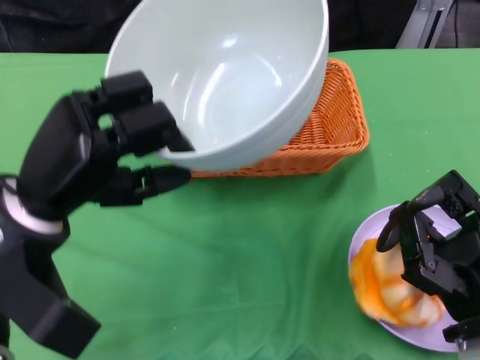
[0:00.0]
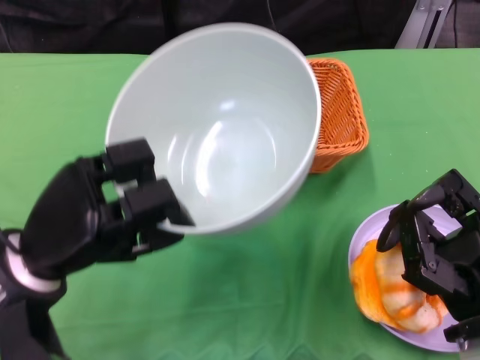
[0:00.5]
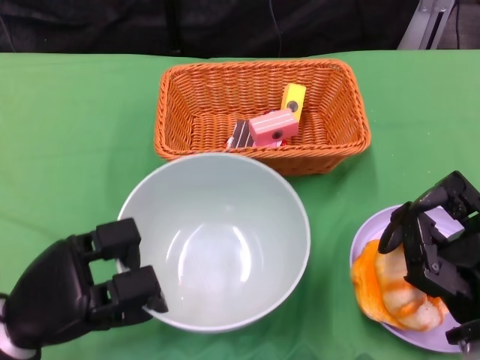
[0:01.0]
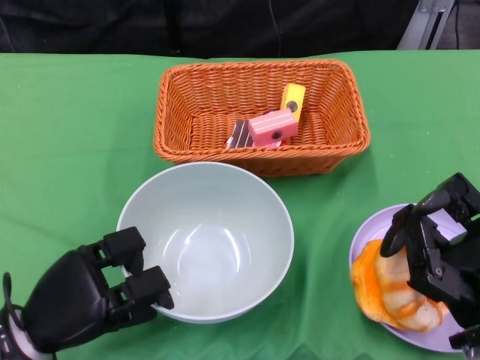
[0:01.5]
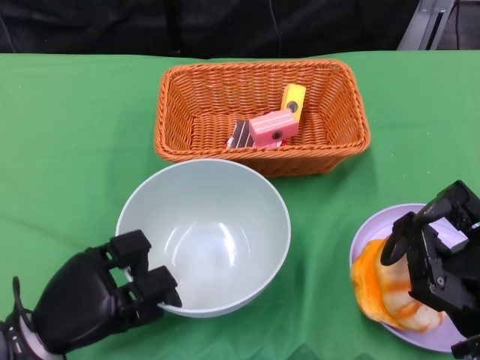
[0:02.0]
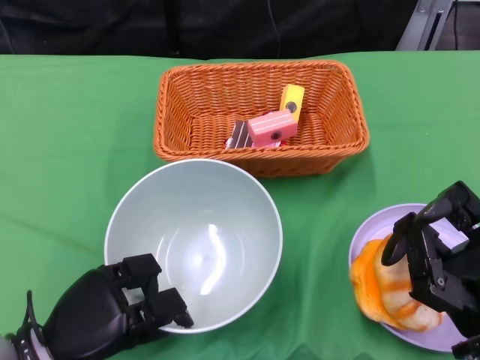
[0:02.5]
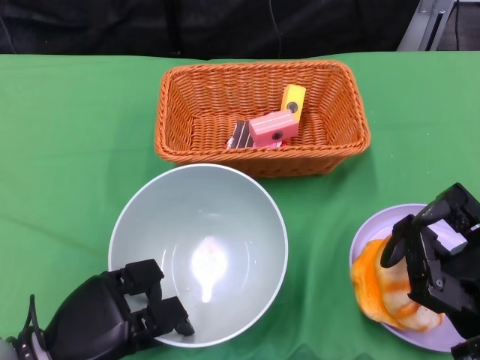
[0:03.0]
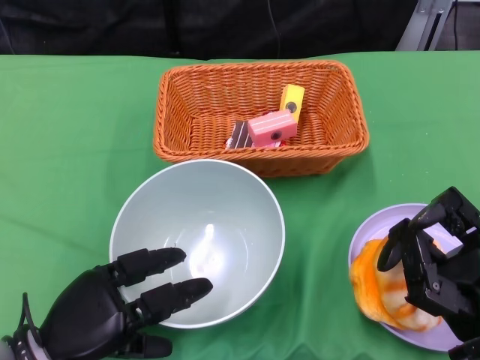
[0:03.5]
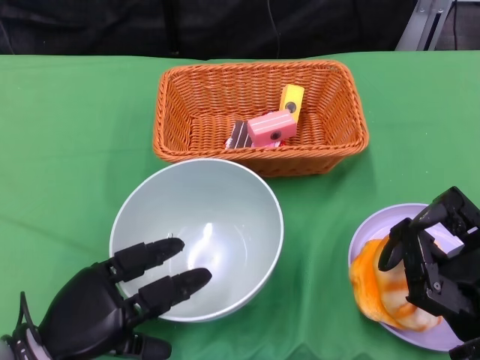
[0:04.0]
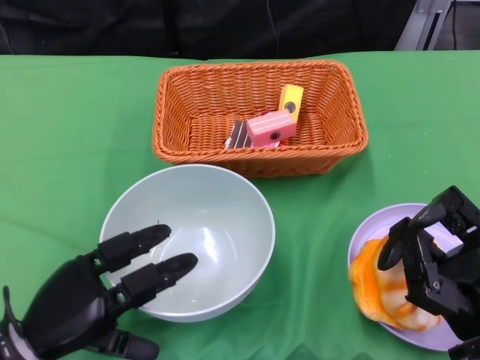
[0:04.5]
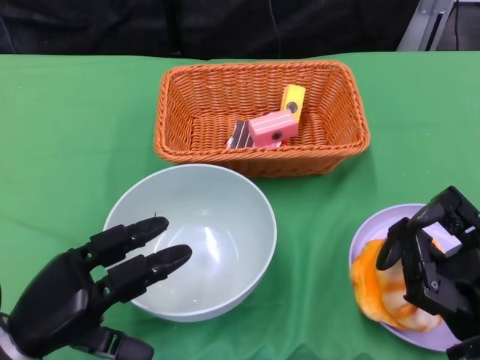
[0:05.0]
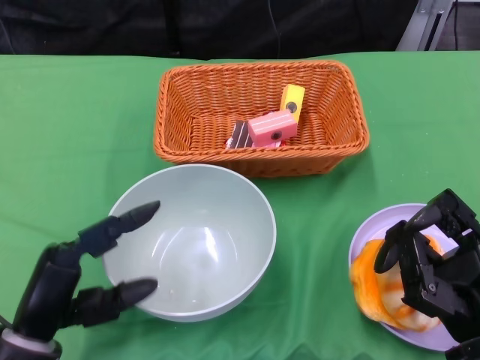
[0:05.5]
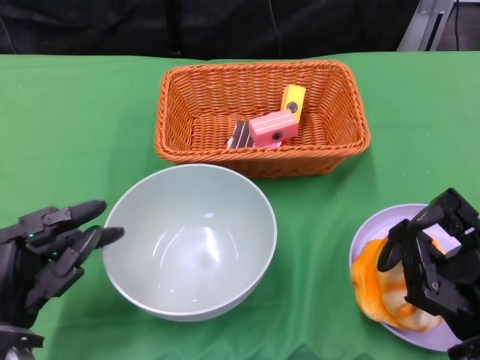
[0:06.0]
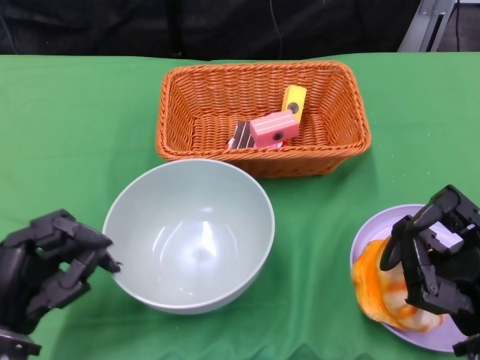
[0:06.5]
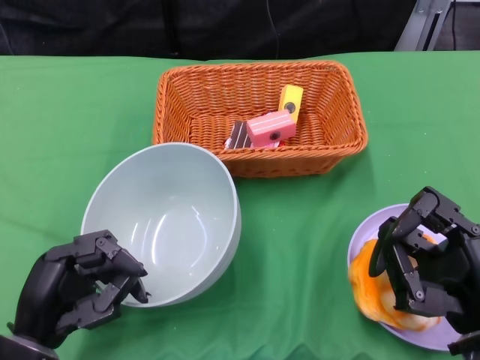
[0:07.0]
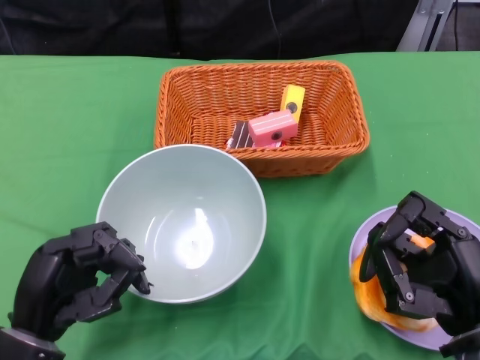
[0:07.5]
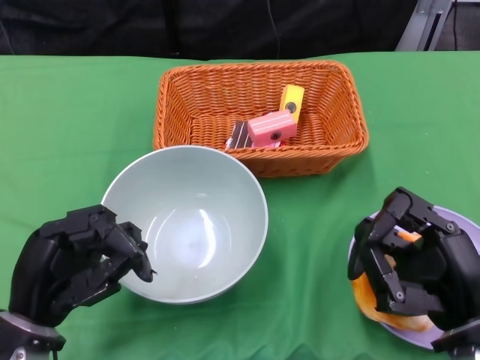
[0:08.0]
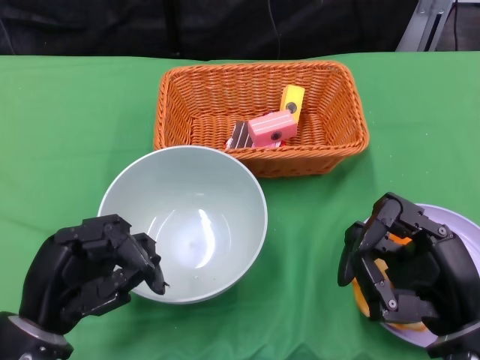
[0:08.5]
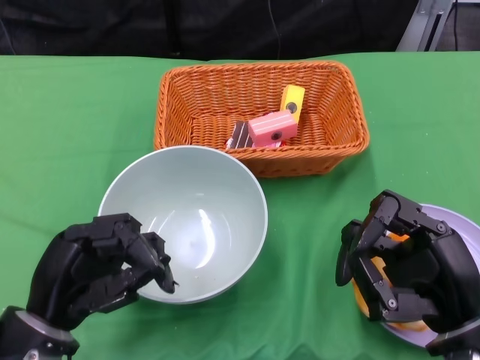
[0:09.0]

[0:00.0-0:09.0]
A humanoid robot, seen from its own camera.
Step, 0:00.0 to 0:05.0: Place the bowl on the table with the left gripper.
0:00.0 to 0:02.0: The left hand moves downward, roughly 15 cm.
0:02.0 to 0:04.5: The hands make only small movements.

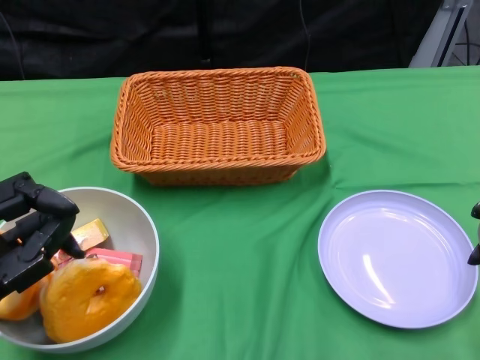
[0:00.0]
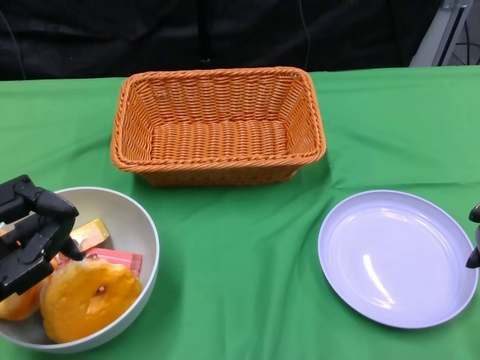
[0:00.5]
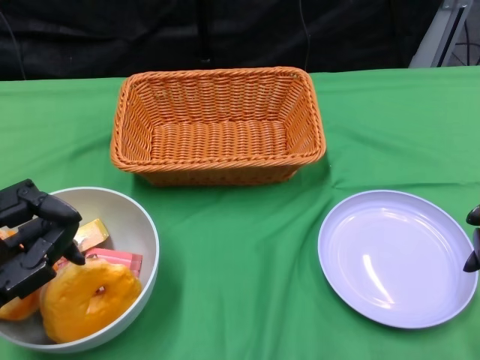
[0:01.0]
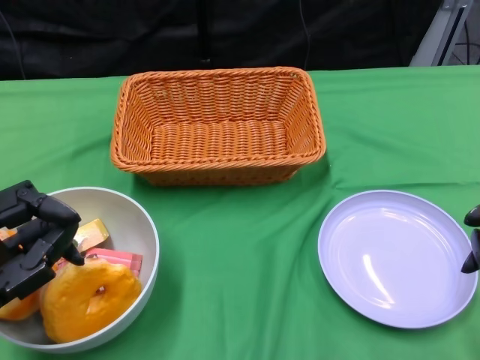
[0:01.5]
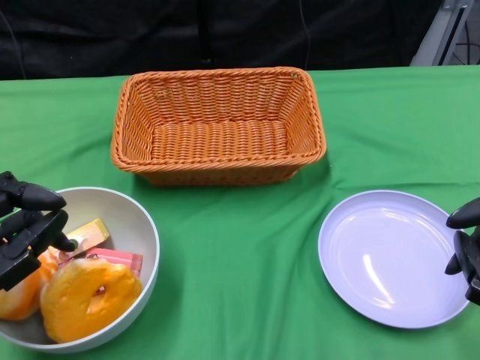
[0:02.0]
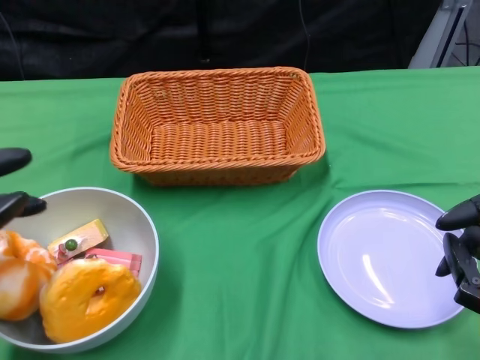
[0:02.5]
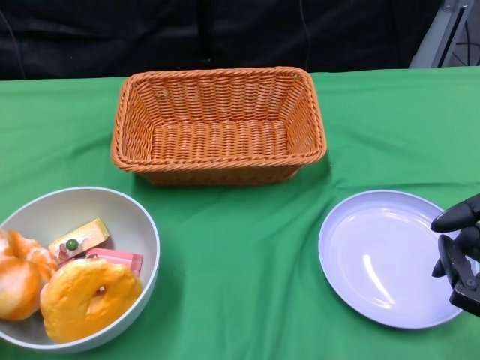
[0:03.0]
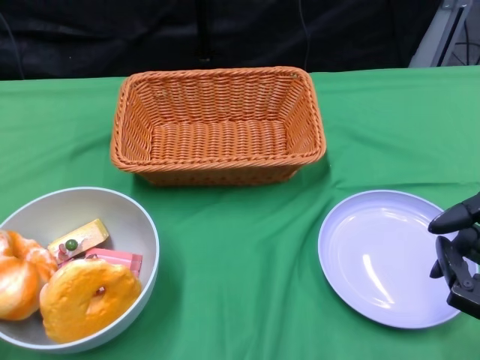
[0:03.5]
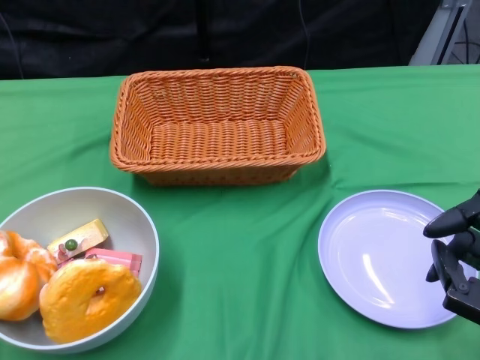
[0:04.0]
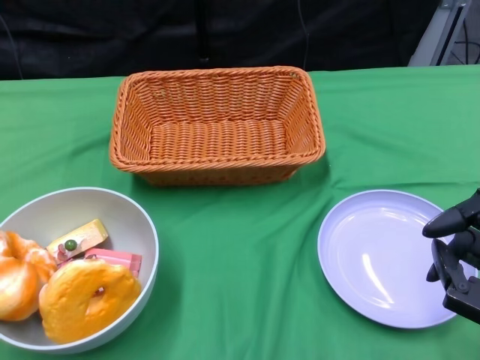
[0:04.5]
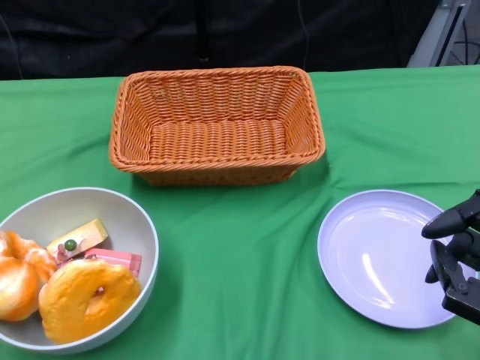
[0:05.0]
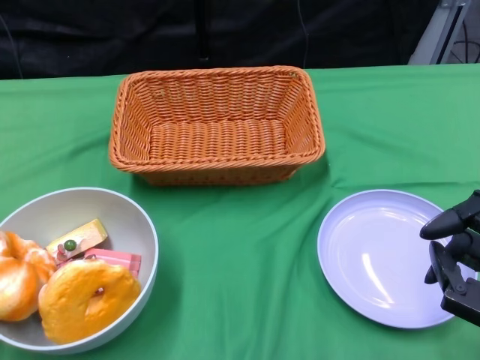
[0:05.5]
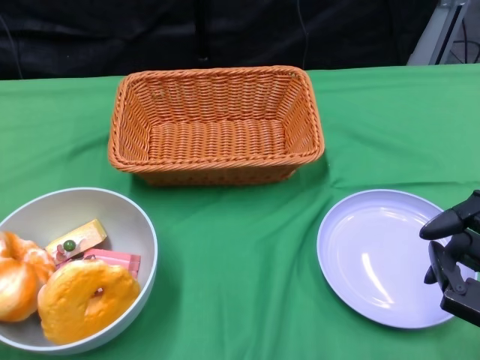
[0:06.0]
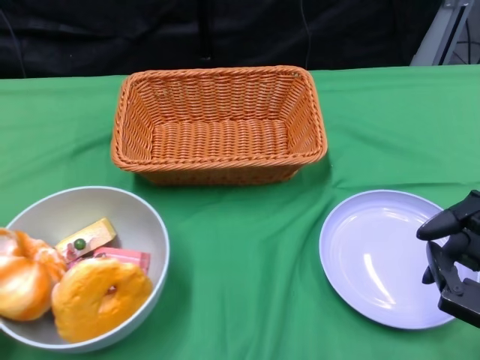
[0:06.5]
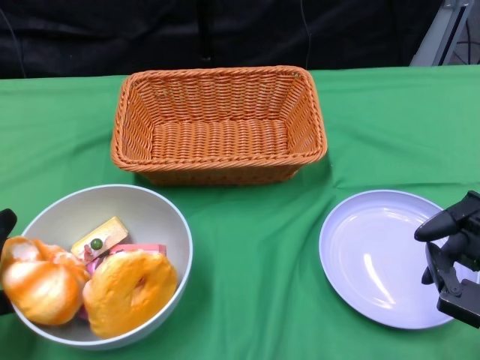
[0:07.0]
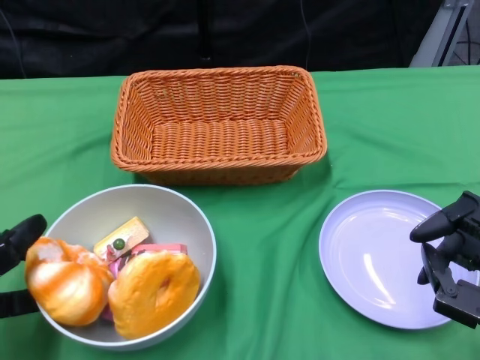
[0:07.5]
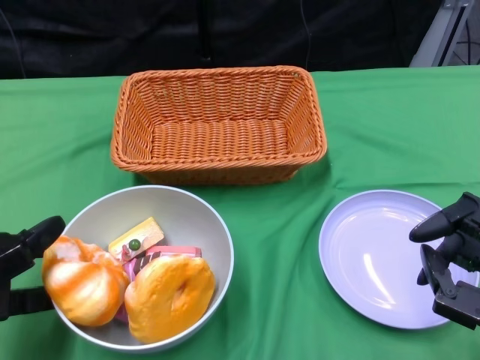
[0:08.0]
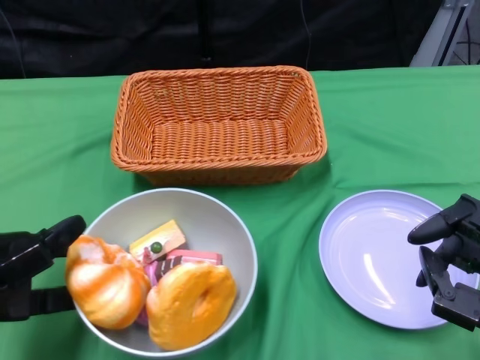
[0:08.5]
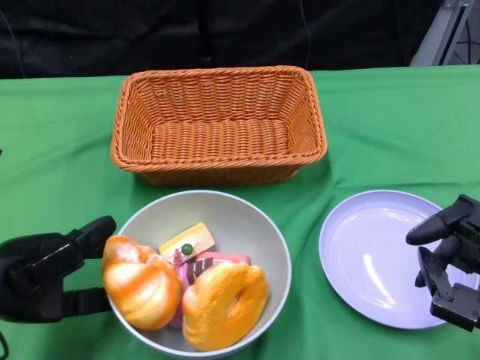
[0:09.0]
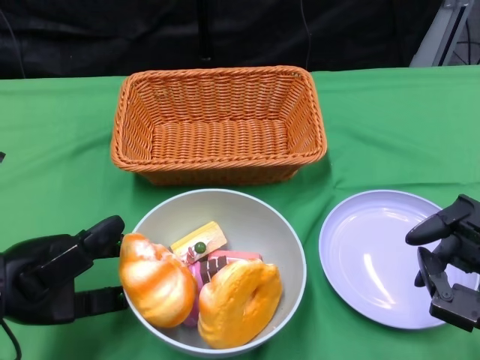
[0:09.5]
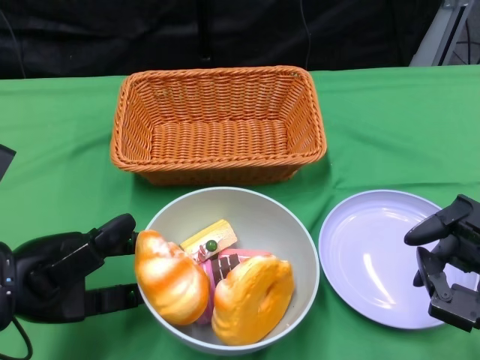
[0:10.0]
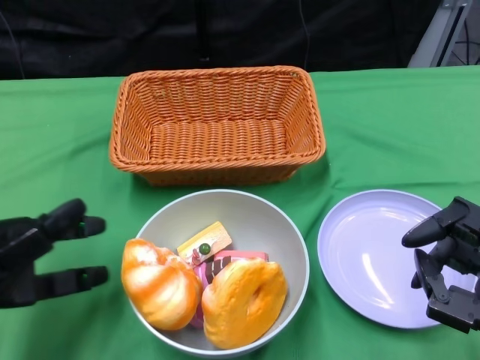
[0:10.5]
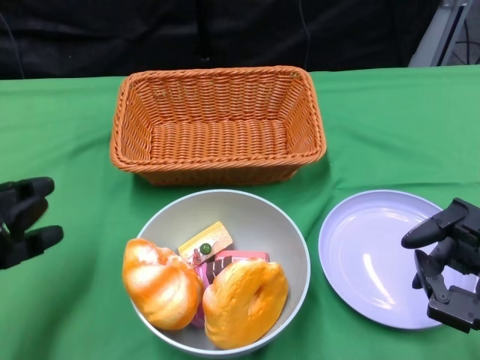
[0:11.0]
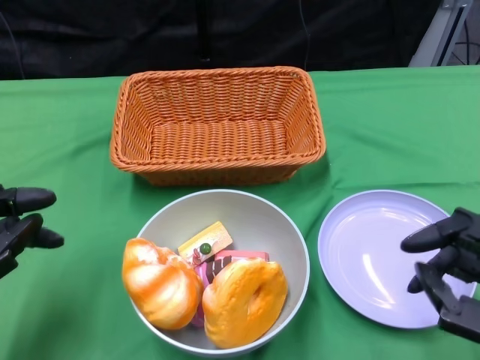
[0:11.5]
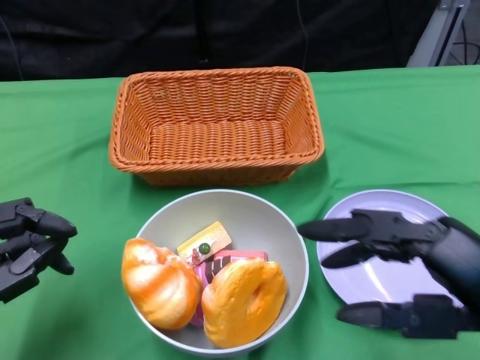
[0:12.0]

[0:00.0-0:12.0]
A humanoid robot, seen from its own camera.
Step, 0:00.0 to 0:10.5: Push the bowl to the center of the table using the left gripper.
0:02.0 to 0:04.0: The left hand moves to the left and forward, about 15 cm.
0:06.0 to 0:08.0: The left hand shifts some 5 cm to the right.
0:08.0 to 0:10.0: The left hand heads to the right, covering some 5 cm.
0:10.0 to 0:12.0: The left hand moves downward, about 5 cm, while the right hand goes approximately 5 cm upward.

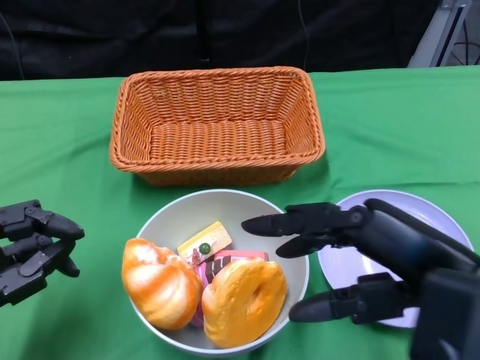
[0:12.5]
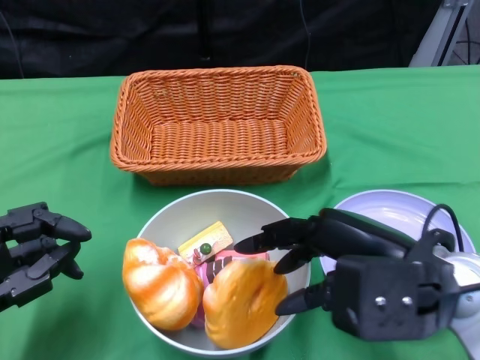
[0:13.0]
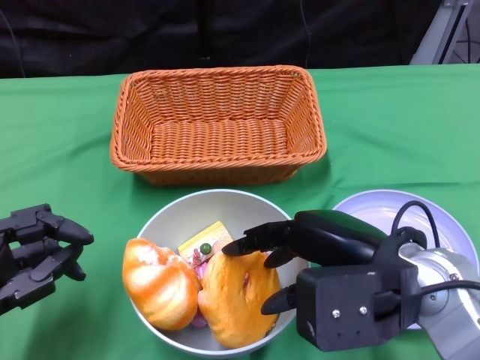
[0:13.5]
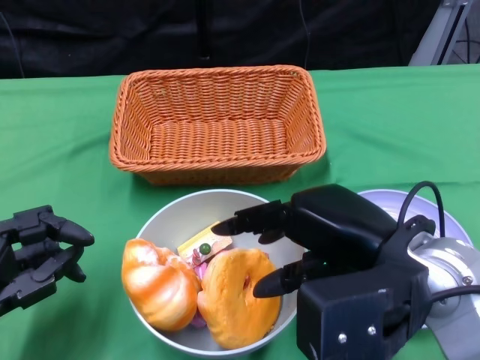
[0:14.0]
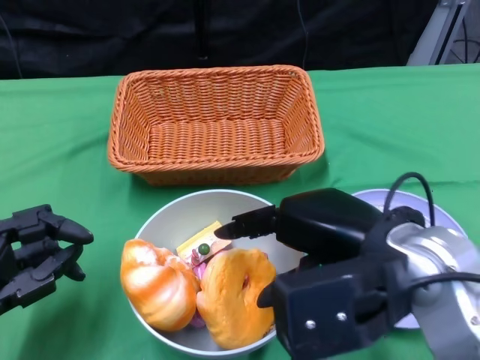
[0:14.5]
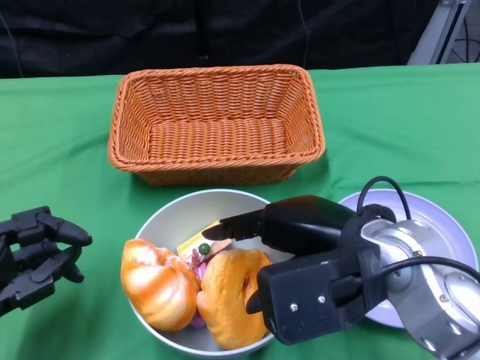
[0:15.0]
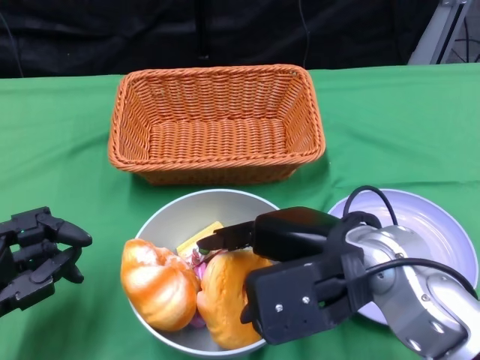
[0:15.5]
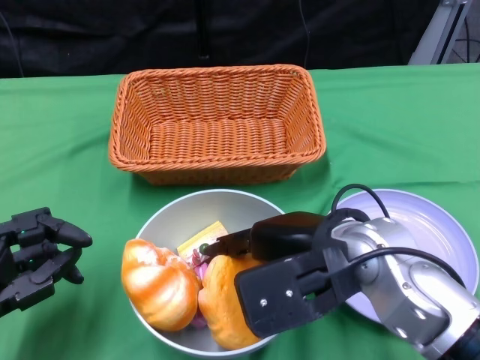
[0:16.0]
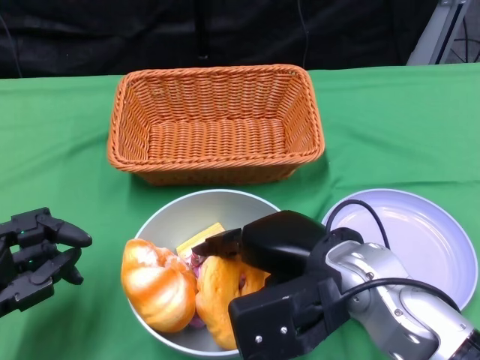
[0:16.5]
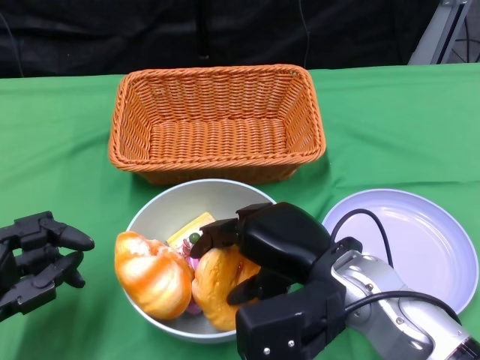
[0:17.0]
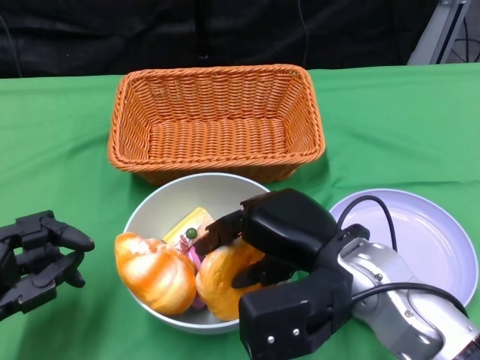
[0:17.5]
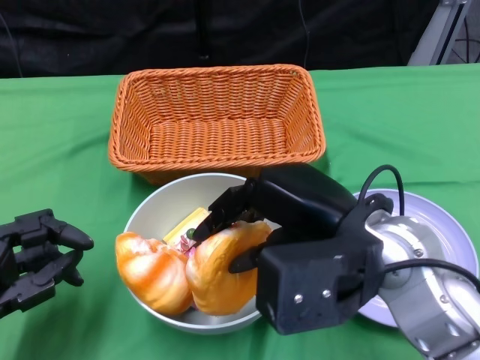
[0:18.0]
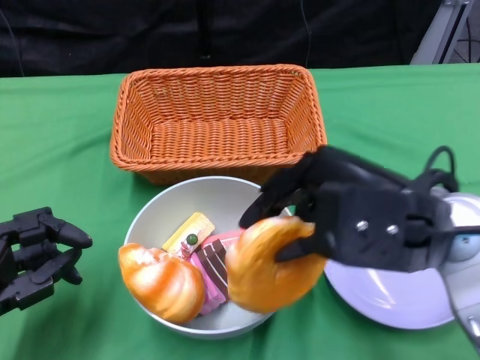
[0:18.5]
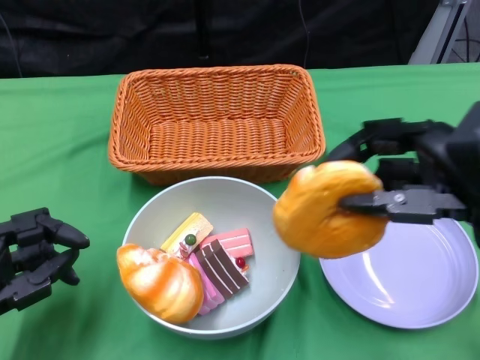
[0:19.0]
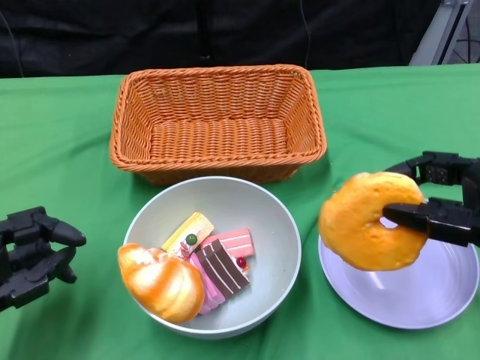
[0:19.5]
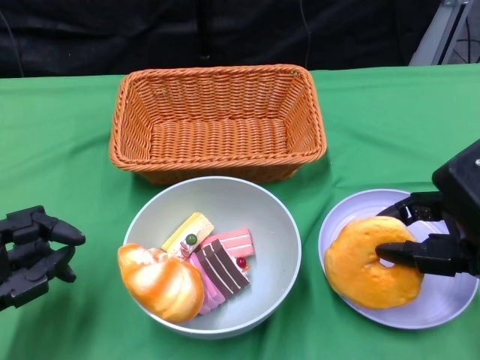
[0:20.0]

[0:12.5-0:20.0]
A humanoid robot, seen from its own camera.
0:12.5 to 0:14.5: The right hand is displaced to the left by roughly 5 cm.
0:14.5 to 0:16.5: The right hand goes about 5 cm downward.
0:16.5 to 0:18.0: The right hand moves about 5 cm.
0:18.0 to 0:20.0: The right hand is displaced to the right by about 10 cm.
